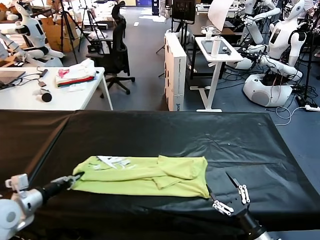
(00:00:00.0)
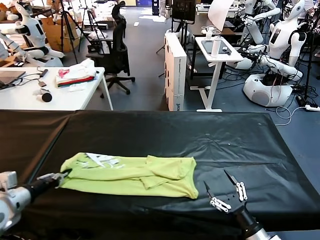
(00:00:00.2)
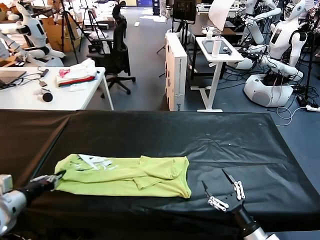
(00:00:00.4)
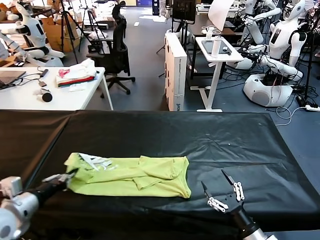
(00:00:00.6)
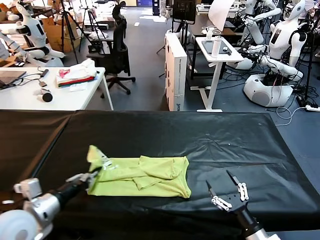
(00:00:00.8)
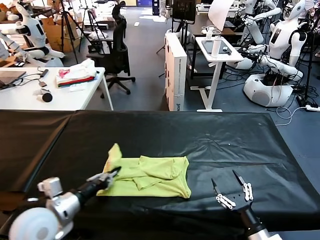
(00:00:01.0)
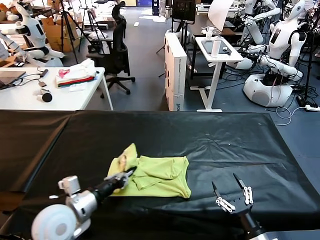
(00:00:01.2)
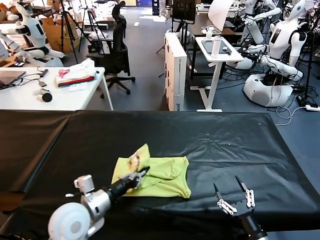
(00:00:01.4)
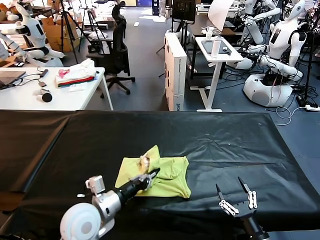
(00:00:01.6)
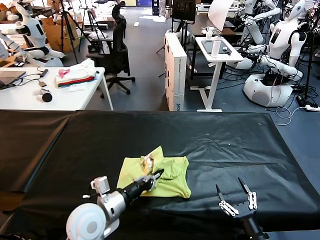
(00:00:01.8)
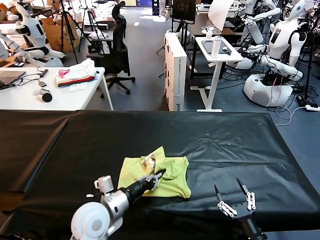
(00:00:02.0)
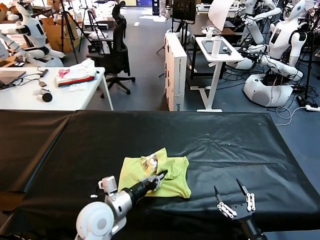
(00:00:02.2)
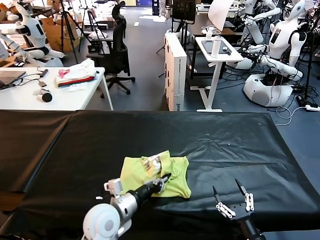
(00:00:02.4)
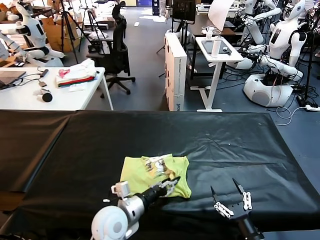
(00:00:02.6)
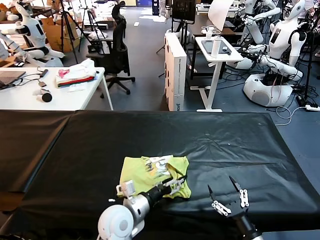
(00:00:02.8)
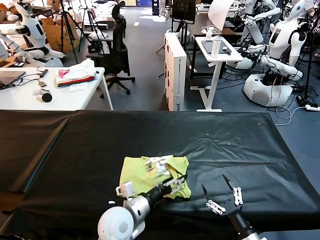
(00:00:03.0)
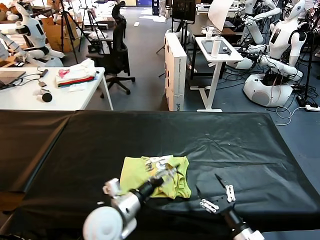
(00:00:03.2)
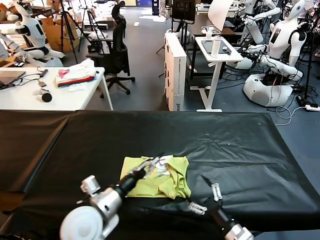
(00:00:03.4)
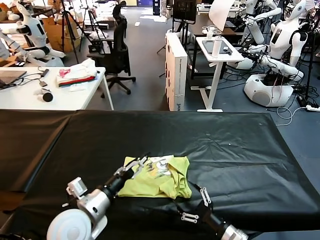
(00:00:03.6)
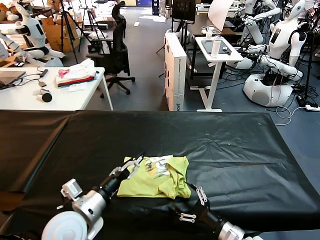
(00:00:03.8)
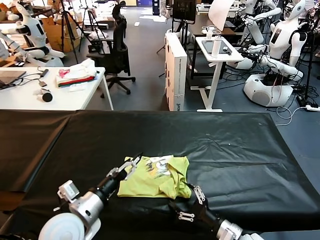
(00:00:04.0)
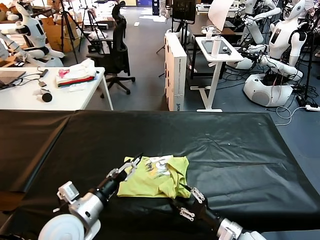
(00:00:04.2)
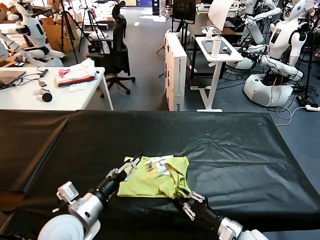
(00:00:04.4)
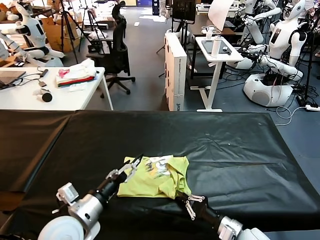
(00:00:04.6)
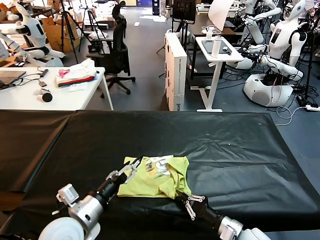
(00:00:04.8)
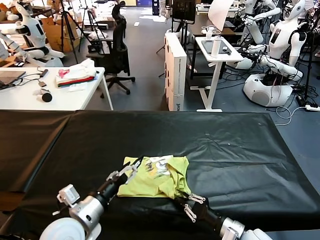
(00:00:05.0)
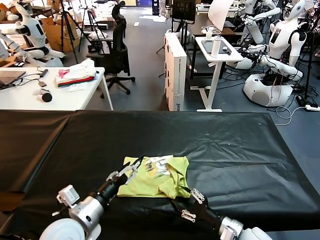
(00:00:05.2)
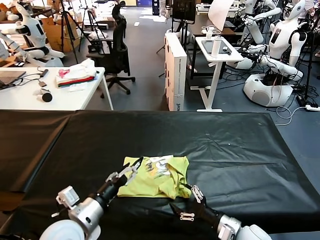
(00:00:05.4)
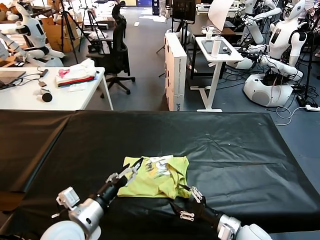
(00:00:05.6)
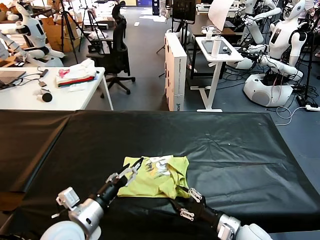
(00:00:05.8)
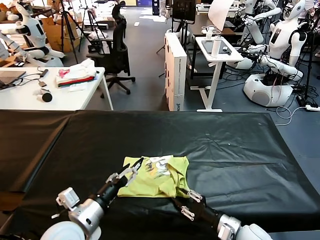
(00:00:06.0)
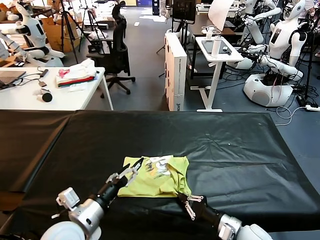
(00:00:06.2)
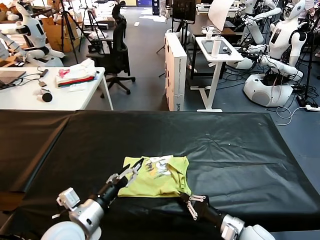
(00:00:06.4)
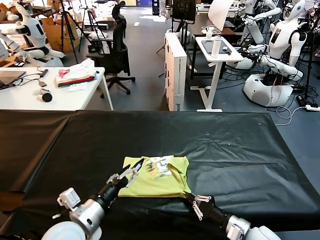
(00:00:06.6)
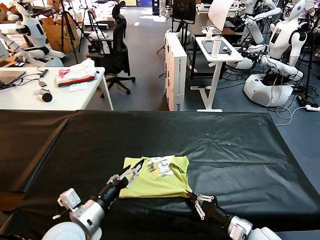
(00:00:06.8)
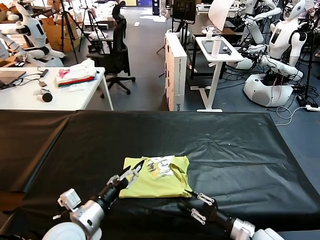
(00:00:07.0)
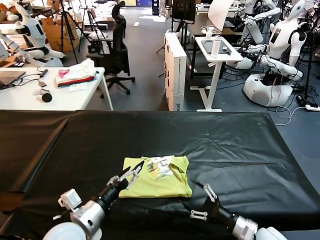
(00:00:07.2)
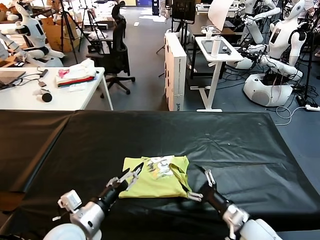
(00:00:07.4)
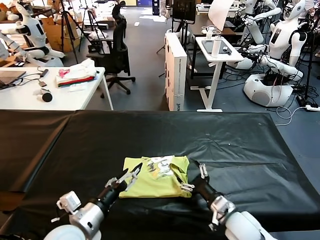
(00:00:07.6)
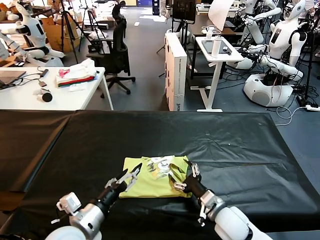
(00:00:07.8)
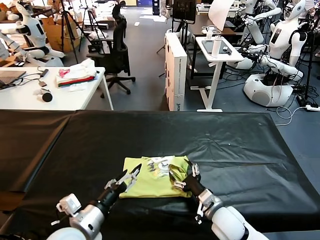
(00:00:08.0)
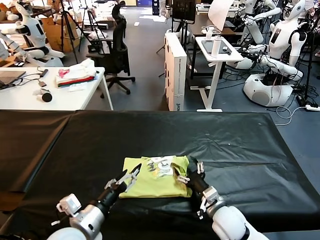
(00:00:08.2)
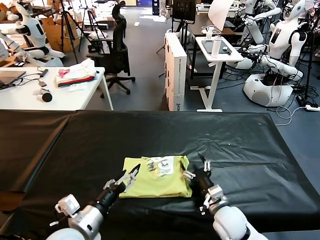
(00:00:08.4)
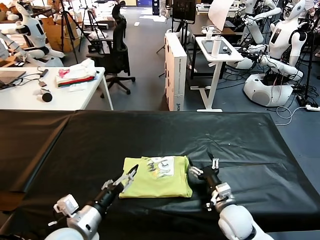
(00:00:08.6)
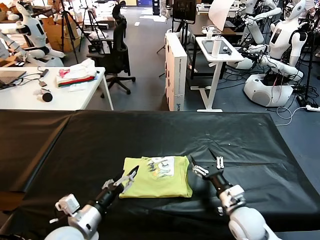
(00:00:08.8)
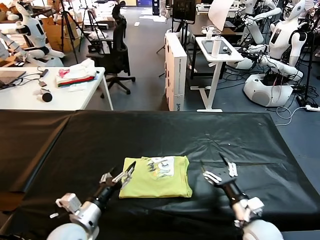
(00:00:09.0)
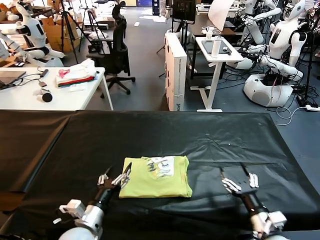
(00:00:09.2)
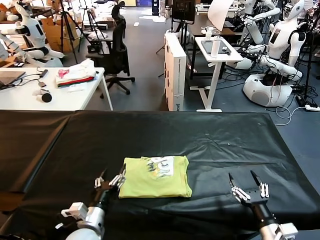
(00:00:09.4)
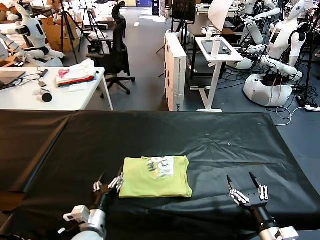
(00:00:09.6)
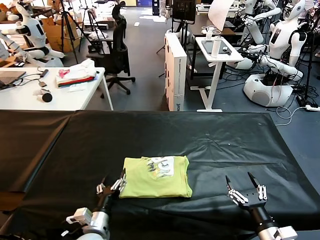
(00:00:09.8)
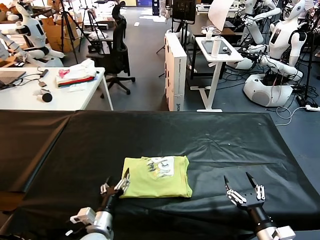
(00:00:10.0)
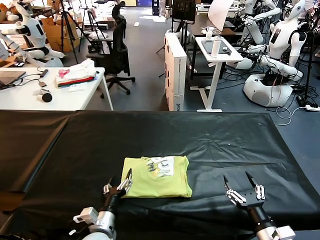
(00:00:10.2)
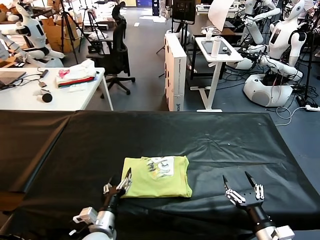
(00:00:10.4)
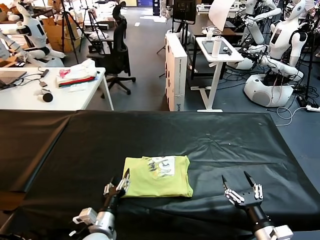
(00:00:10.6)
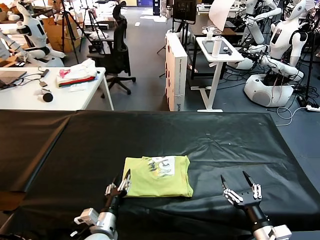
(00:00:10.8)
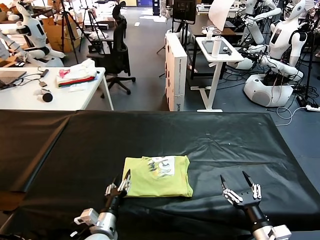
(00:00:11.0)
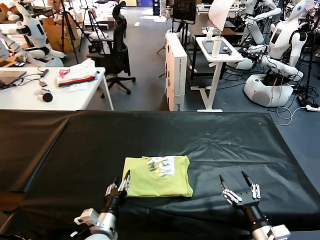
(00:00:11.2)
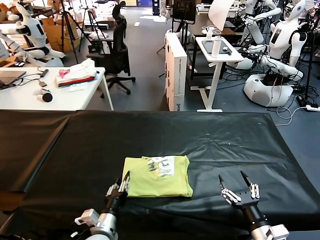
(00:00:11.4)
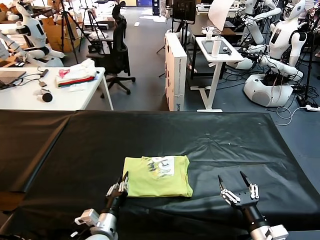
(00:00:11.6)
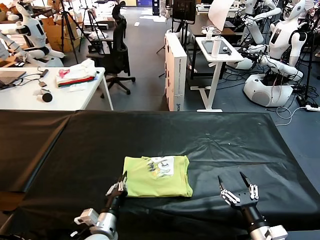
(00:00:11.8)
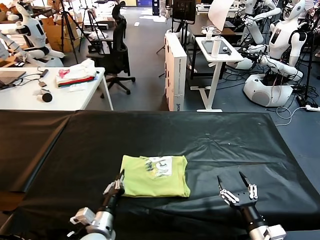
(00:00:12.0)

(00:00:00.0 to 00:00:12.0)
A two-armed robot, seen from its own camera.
Task of the whole recording: fold and organize the clothes.
Step, 00:00:00.0 - 00:00:03.0: use the left gripper to drag the left edge of the fabric to the left and folds it over the right edge.
00:00:00.0 - 00:00:01.6: The left gripper is displaced to the right by approximately 25 cm.
00:00:01.6 - 00:00:03.0: The left gripper is displaced to the right by some 5 cm, and opens.
00:00:03.0 - 00:00:04.4: The right gripper shifts roughly 5 cm forward, and closes. Meanwhile the left gripper goes approximately 10 cm to the left and upward.
00:00:04.4 - 00:00:06.0: The right gripper opens, then closes again.
00:00:06.0 - 00:00:07.6: The right gripper moves approximately 5 cm, and opens its fingers.
00:00:07.6 - 00:00:09.0: The right gripper is displaced to the right by some 5 cm, while the left gripper ends up about 5 cm from where it was.
00:00:09.0 - 00:00:10.4: The right gripper moves backward, approximately 10 cm, while the left gripper heads downward, covering roughly 10 cm.
00:00:10.4 - 00:00:12.0: The left gripper closes up.

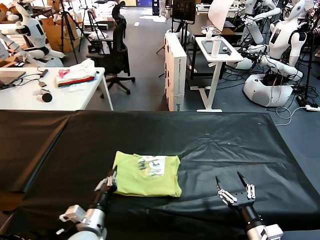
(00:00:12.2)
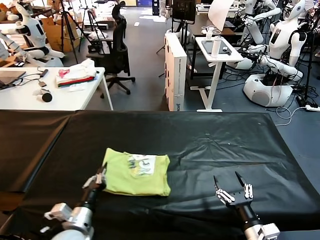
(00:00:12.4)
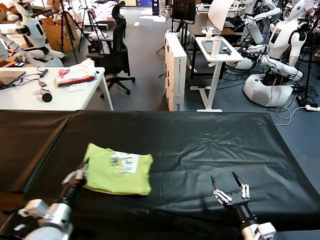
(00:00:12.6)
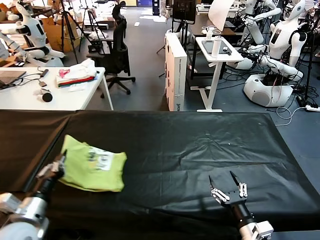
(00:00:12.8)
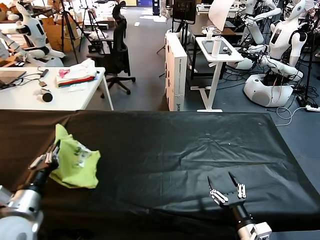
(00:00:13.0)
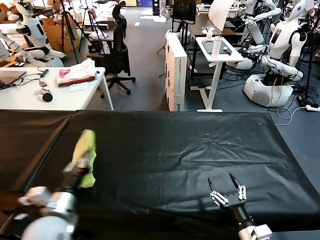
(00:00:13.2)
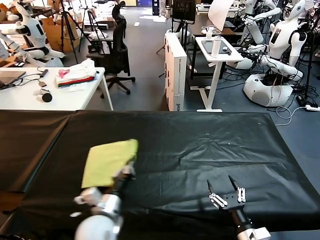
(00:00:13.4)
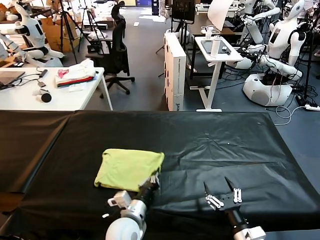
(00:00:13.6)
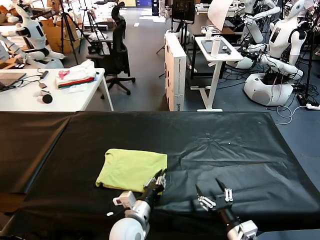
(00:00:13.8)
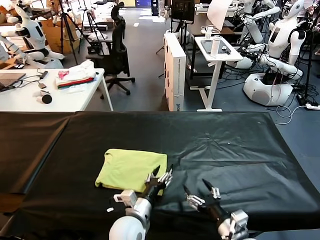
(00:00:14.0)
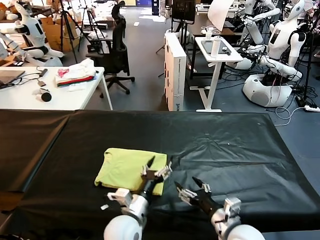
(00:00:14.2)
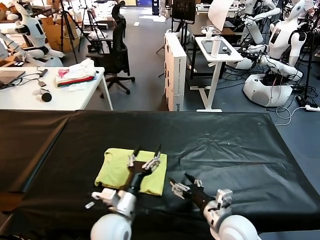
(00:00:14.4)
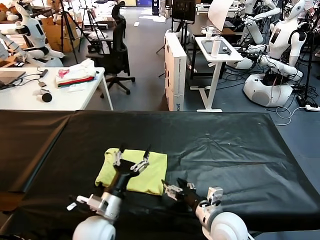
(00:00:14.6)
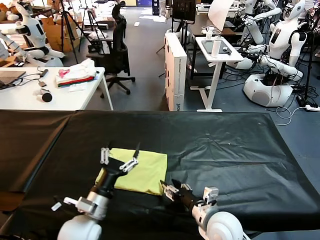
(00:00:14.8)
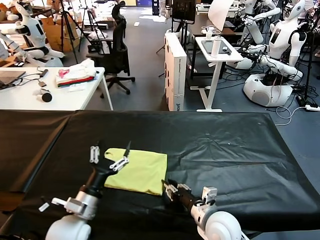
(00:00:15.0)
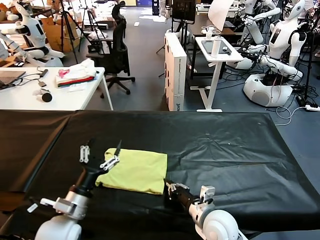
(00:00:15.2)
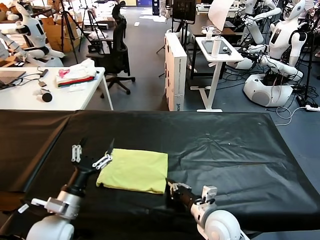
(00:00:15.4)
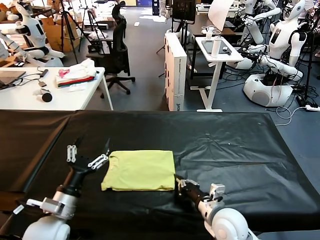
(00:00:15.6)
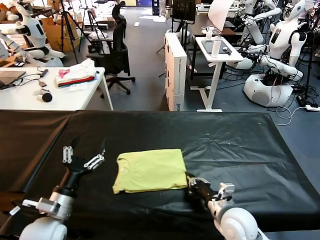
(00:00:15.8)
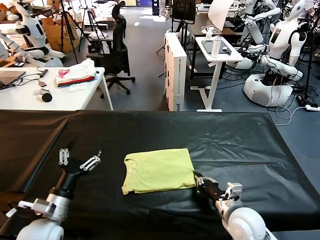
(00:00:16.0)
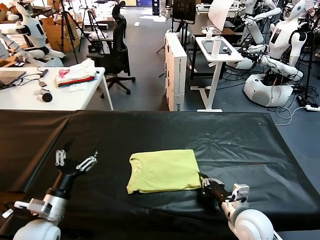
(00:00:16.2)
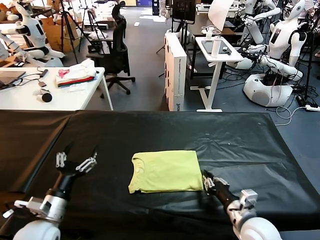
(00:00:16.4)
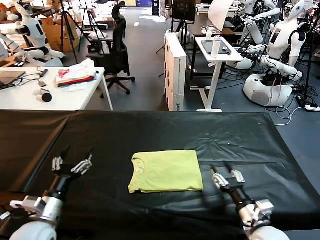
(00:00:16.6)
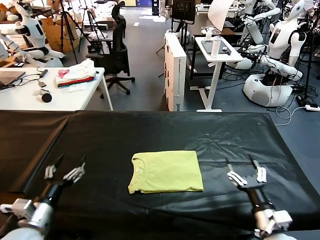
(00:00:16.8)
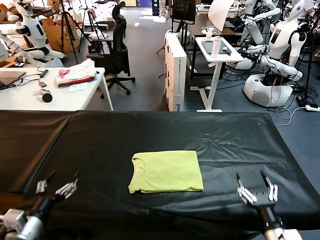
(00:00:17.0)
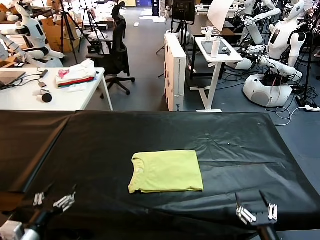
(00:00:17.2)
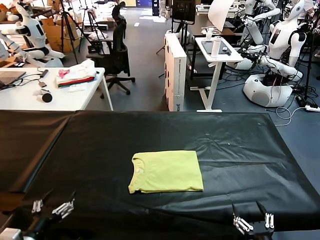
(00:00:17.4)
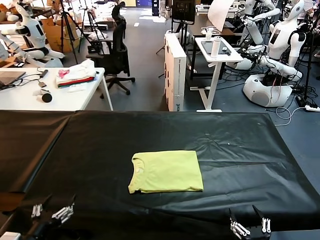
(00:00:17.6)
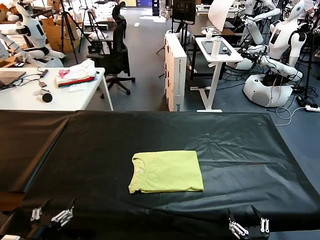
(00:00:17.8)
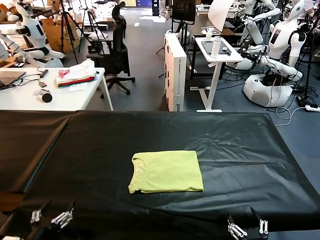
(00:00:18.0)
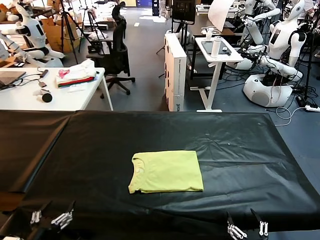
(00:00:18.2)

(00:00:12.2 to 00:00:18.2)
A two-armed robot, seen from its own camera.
Task of the whole recording: fold and organize the clothes.
Step, 00:00:14.2 - 00:00:16.4: Drag the clothes to the center of the table.
00:00:12.2 - 00:00:13.8: The left gripper goes roughly 10 cm to the right.
00:00:13.8 - 00:00:15.2: The left gripper goes some 15 cm to the left and upward, and opens up. The right gripper heads forward and to the left, covering approximately 15 cm, and closes up.
00:00:15.2 - 00:00:16.6: The right gripper moves to the right, about 10 cm, and opens. Meanwhile the left gripper is displaced to the left by some 5 cm.
00:00:16.6 - 00:00:18.2: Both grippers move backward, approximately 15 cm. The right gripper opens its fingers.
